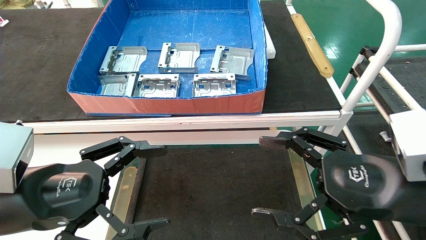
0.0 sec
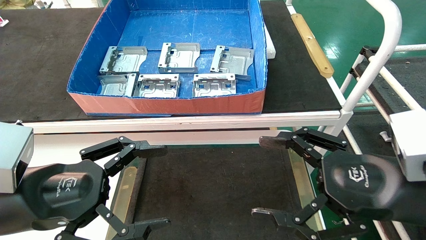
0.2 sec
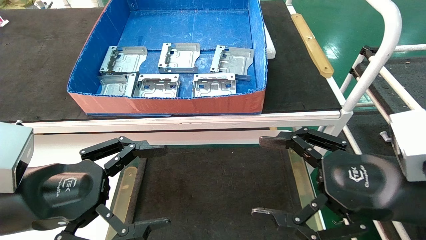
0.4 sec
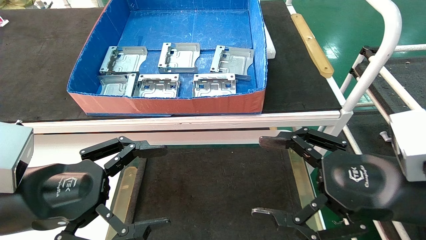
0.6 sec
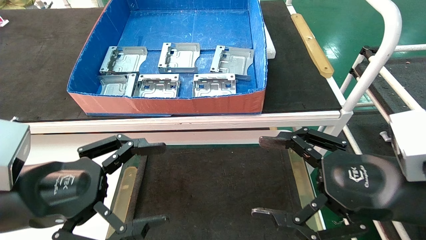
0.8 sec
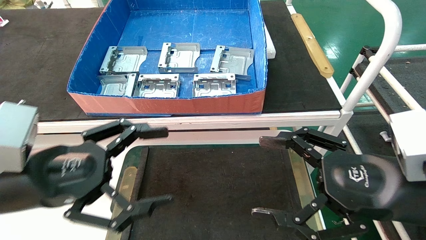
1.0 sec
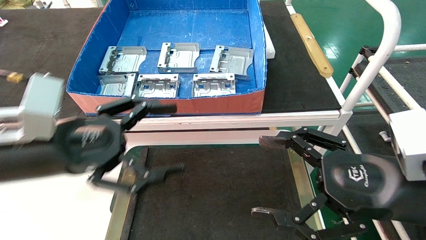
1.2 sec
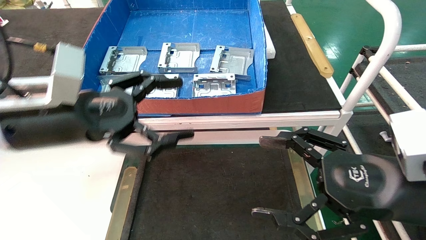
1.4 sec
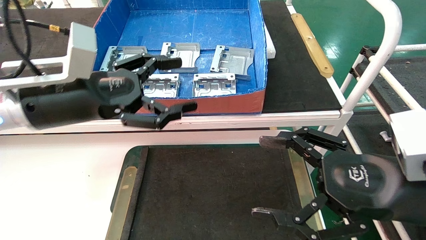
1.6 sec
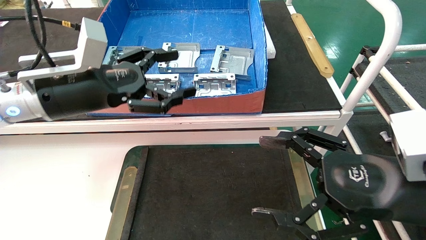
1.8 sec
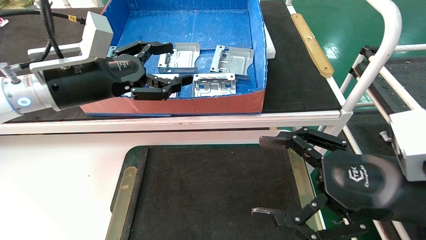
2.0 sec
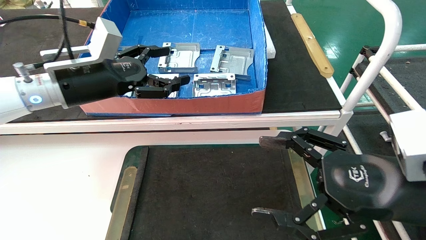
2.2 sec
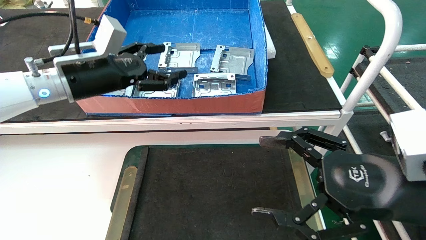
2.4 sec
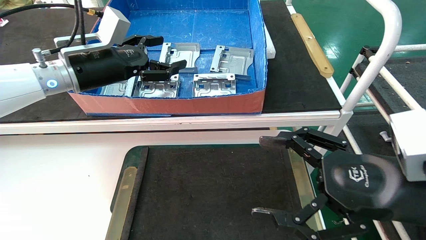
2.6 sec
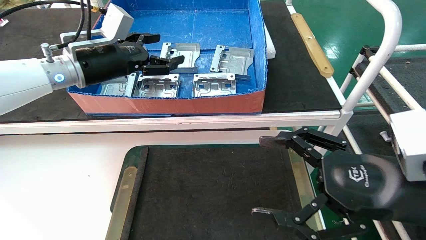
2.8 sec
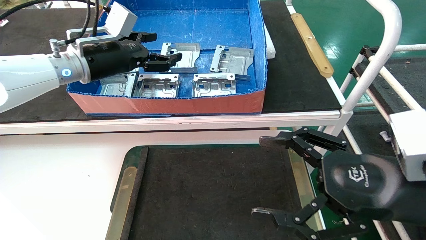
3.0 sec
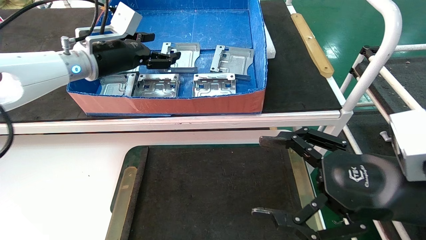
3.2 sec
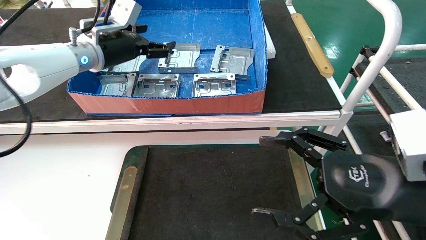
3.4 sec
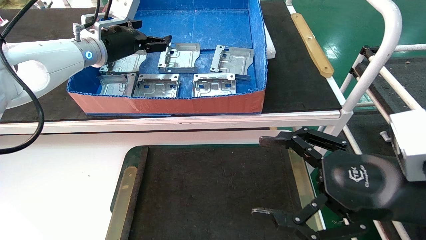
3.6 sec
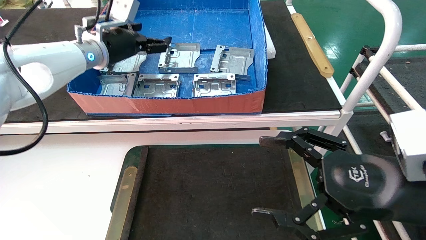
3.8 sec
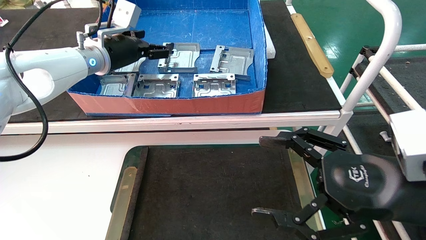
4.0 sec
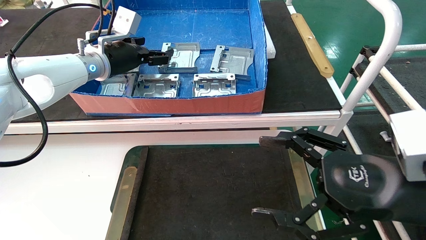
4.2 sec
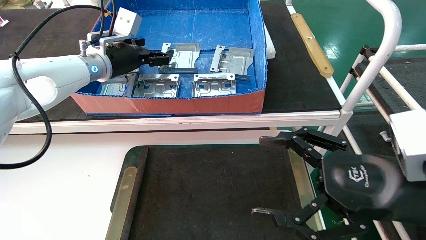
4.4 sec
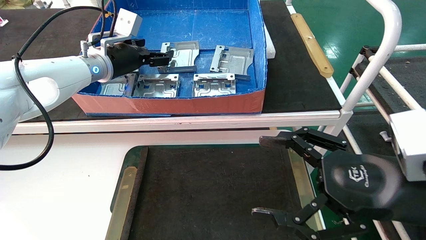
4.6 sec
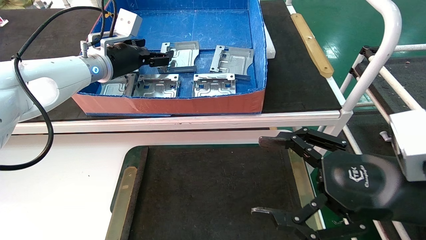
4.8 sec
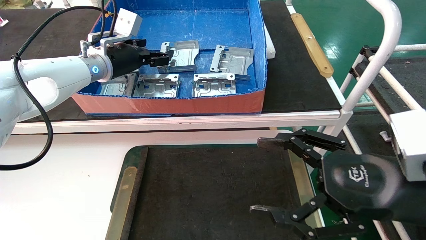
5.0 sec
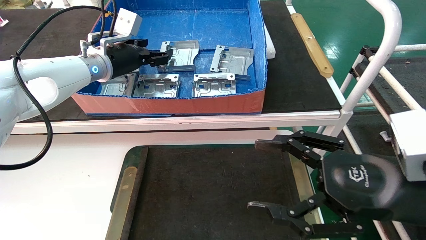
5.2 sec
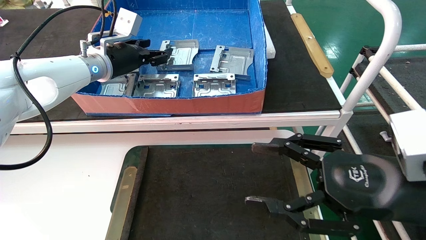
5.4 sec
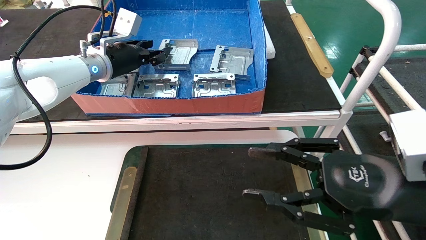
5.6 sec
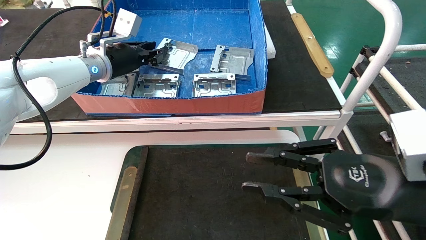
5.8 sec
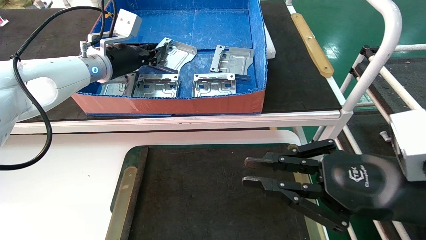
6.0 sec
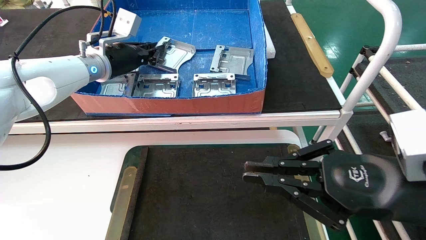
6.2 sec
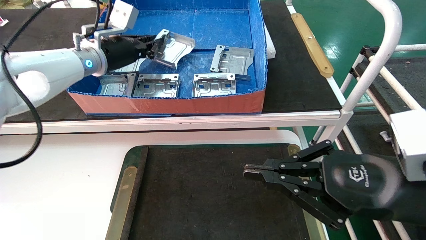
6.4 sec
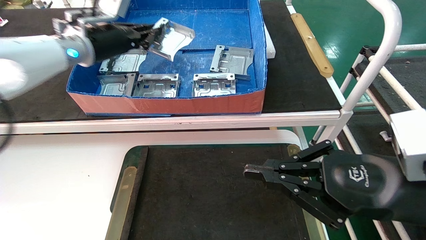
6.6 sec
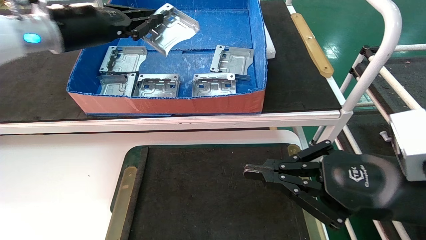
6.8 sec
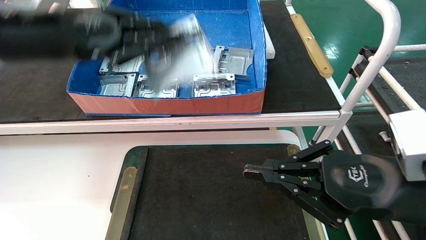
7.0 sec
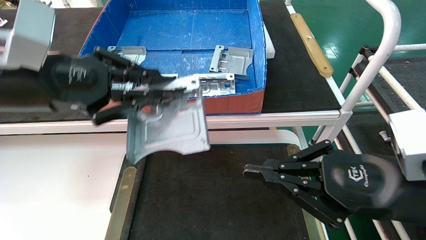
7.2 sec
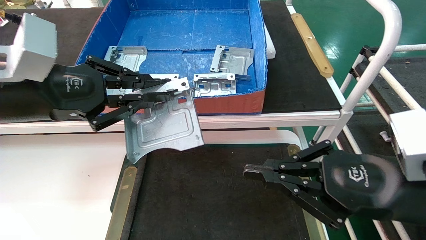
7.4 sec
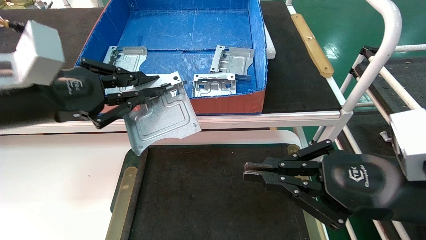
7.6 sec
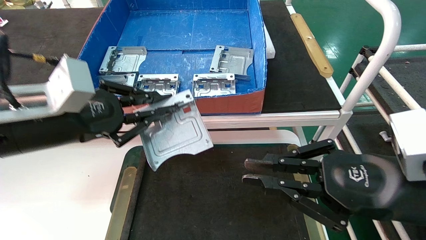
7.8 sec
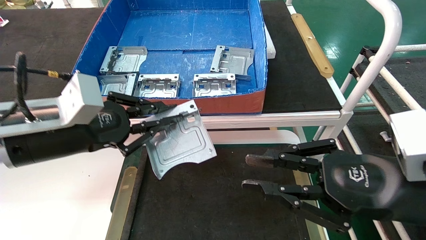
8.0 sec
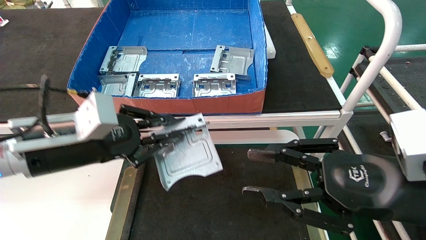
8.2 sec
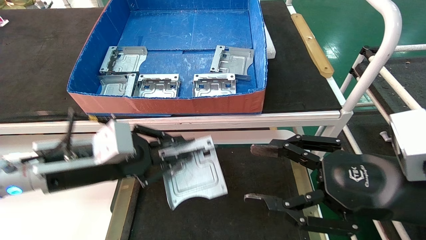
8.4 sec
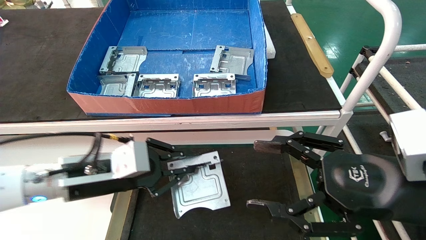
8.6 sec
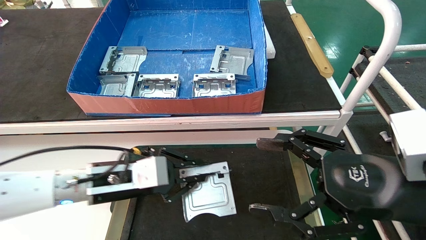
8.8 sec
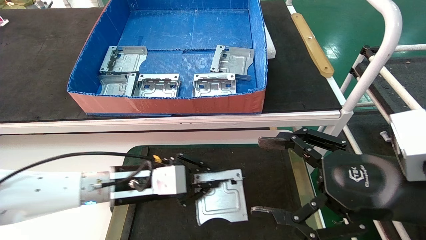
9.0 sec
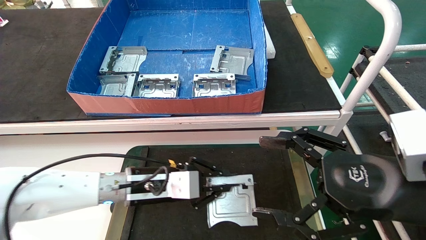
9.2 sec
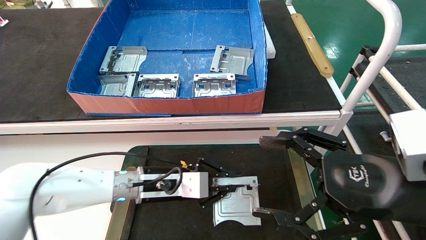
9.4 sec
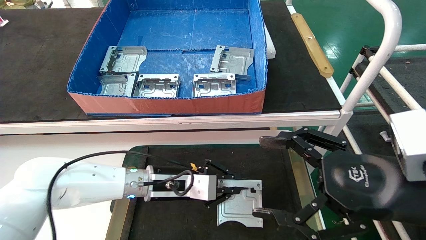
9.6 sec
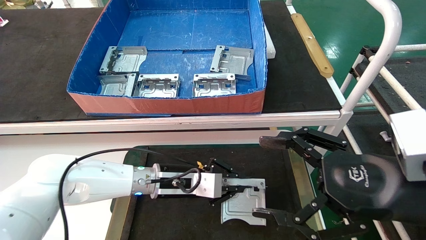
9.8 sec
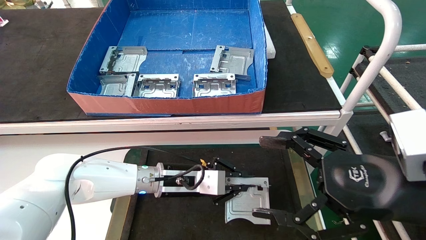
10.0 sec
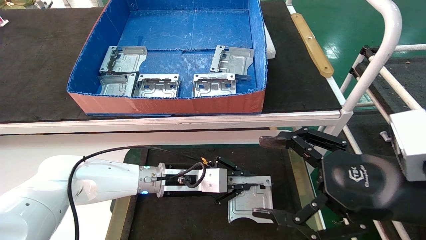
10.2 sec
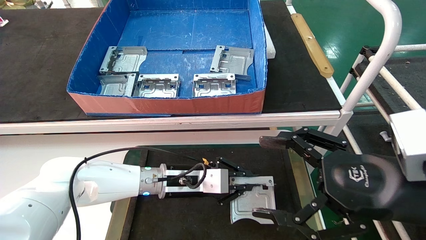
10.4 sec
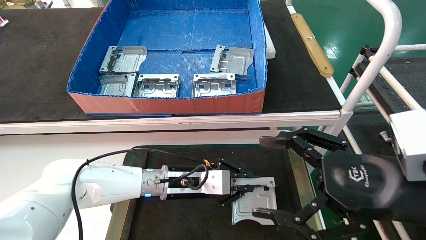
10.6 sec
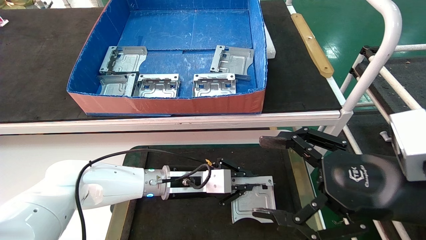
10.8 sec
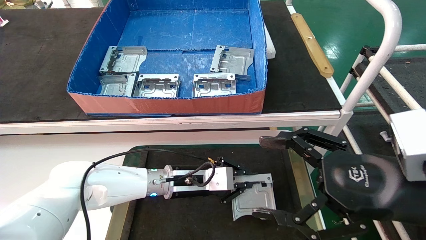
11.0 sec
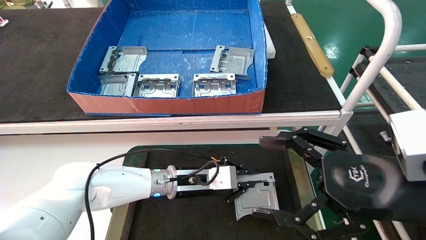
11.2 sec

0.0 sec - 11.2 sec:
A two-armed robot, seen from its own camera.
Task of the whole recording: take the accessories out of the box and place them on the table.
Step, 1.0 sec - 6.0 sec: Pick up the hard drive bracket from the feeding area.
0.0 sec - 1.6 sec: The left gripper moves forward and upward, some 15 cm.
1.6 sec - 3.2 sec: The left gripper shifts some 15 cm forward.
3.2 sec - 4.8 sec: The grippers stay close to where they were, moving slightly.
4.8 sec - 6.4 sec: The right gripper closes its fingers. The left gripper closes.
6.4 sec - 8.0 sec: The left gripper heads backward and downward, covering roughly 20 cm.
8.0 sec - 9.6 sec: The left gripper heads downward, to the right and forward, covering about 25 cm; the right gripper opens its fingers.
9.6 sec - 11.2 sec: The left gripper moves about 5 cm.

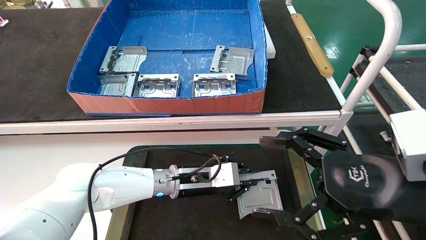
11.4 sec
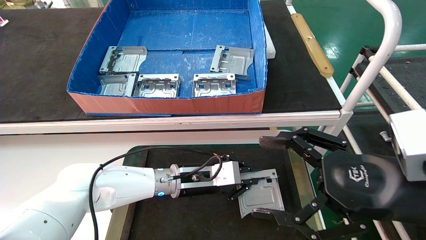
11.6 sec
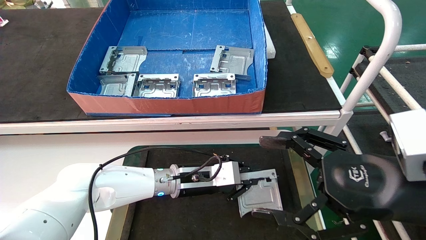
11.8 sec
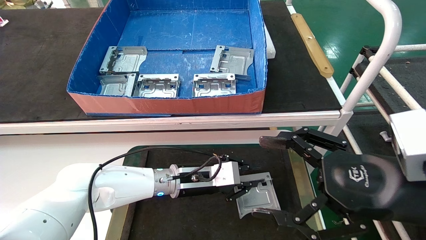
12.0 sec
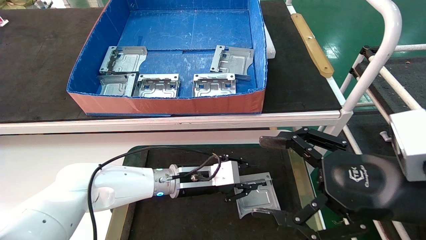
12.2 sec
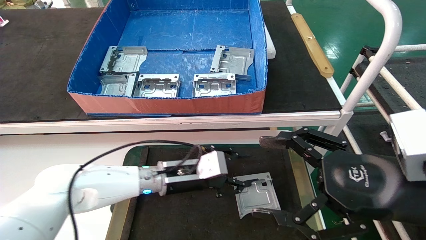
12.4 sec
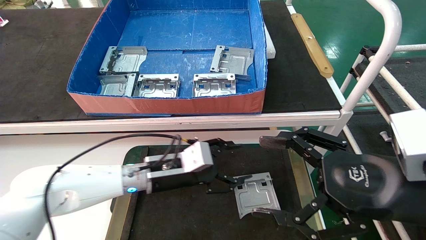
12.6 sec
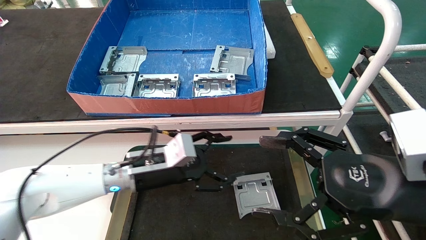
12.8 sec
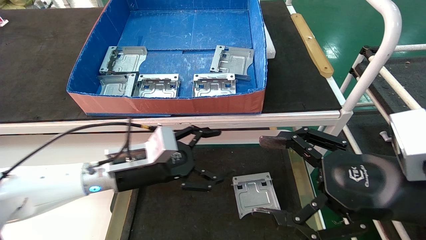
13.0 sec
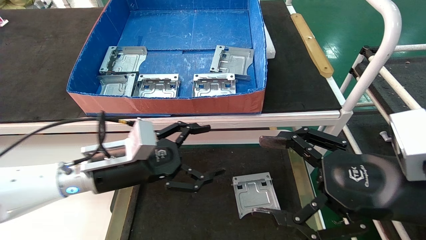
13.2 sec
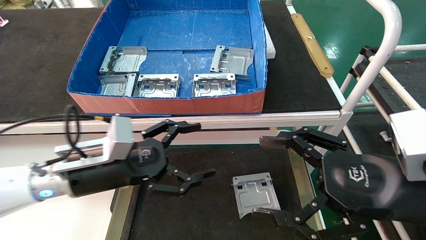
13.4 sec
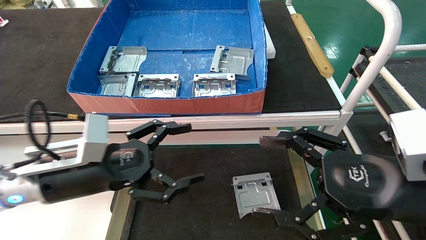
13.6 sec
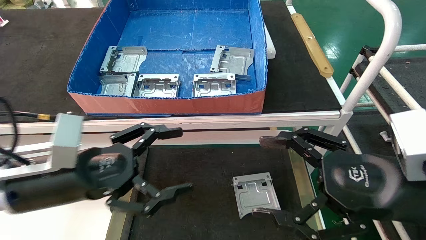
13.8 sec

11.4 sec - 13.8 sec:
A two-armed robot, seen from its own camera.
Task of the whole recording: take the accessories out of the box and place them on the table.
11.4 sec - 12.6 sec: The left gripper goes some 5 cm to the left, and opens.
12.6 sec - 13.8 sec: The left gripper heads backward, to the left and upward, covering about 20 cm, and opens its fingers.
